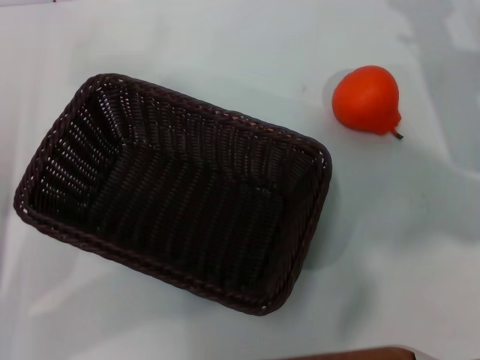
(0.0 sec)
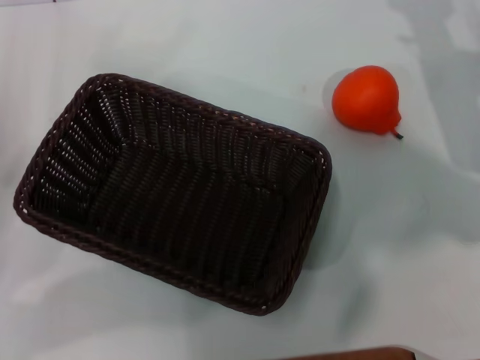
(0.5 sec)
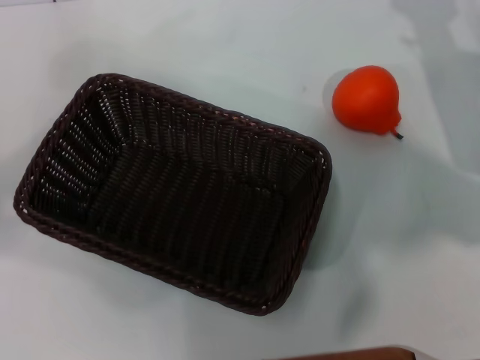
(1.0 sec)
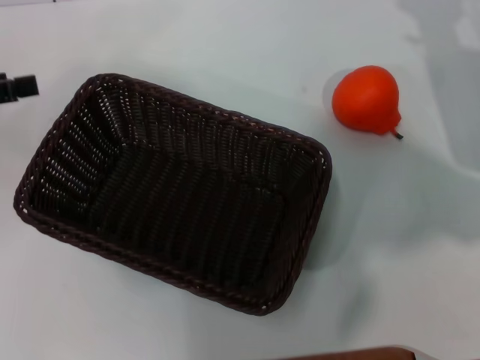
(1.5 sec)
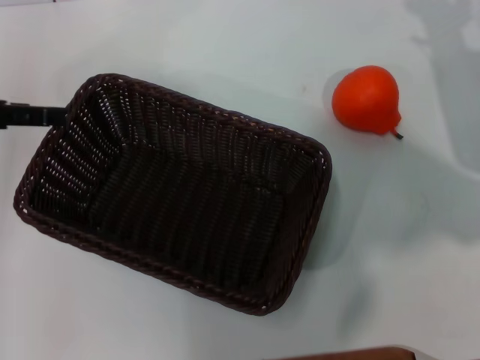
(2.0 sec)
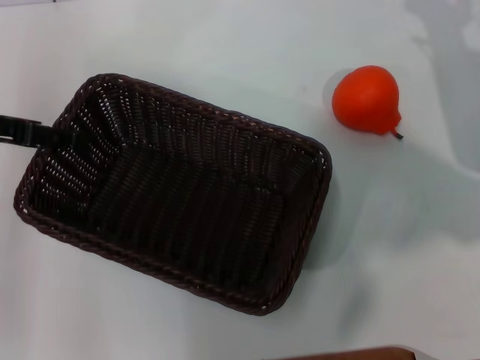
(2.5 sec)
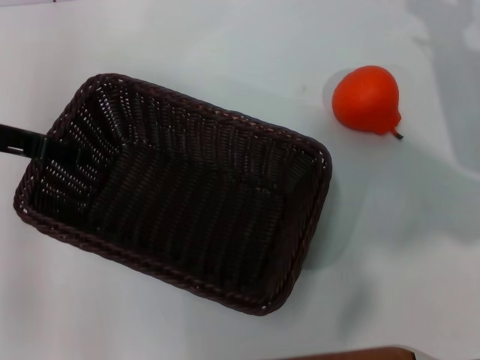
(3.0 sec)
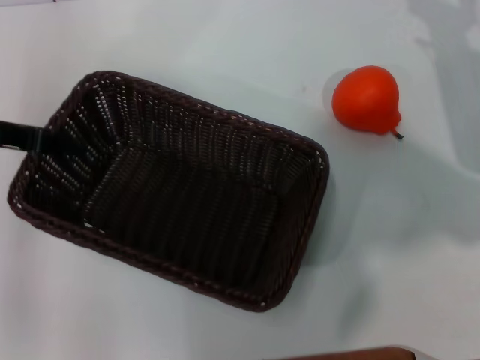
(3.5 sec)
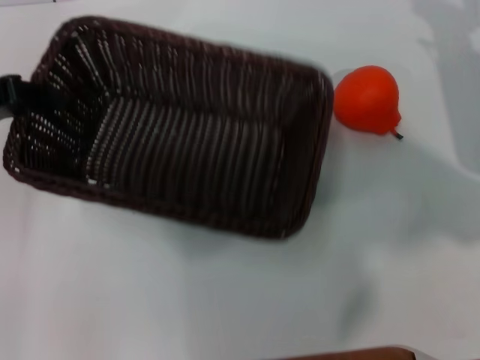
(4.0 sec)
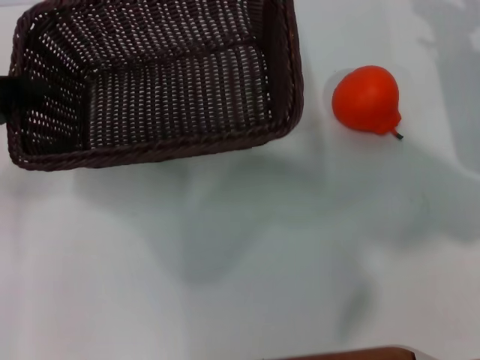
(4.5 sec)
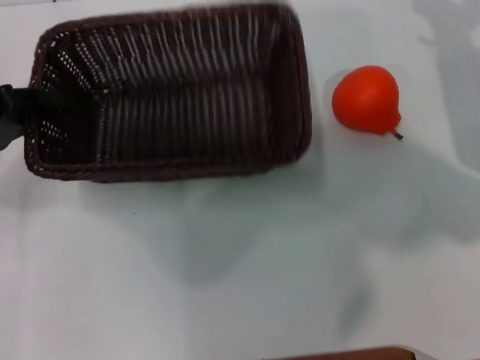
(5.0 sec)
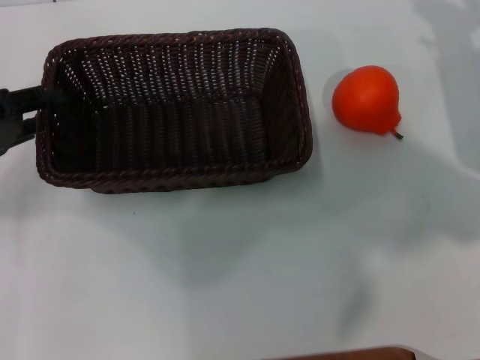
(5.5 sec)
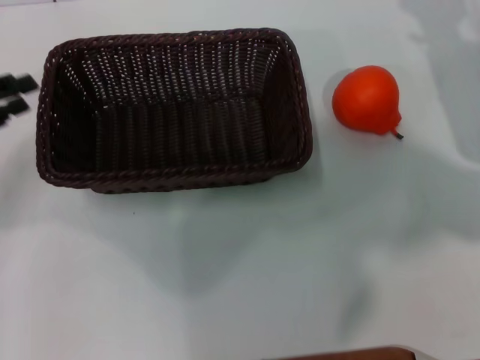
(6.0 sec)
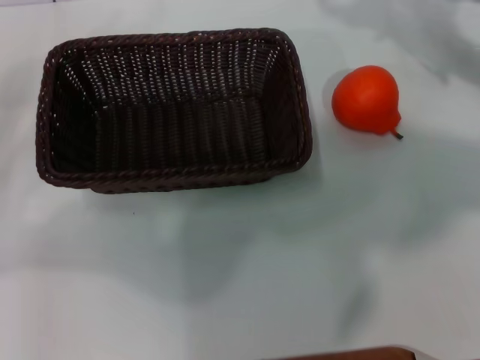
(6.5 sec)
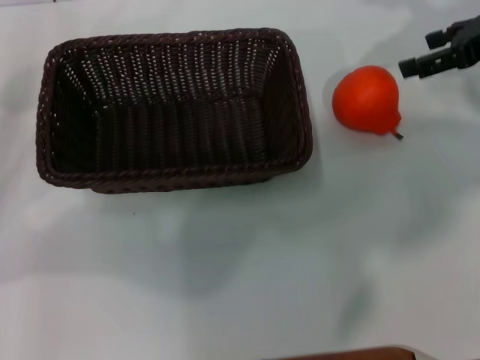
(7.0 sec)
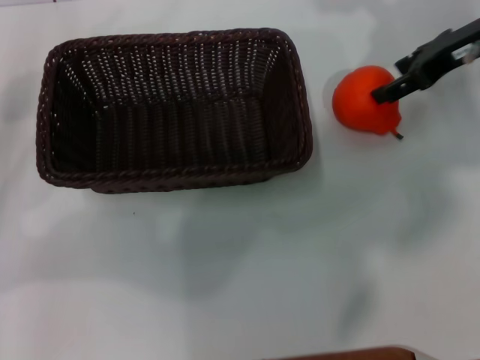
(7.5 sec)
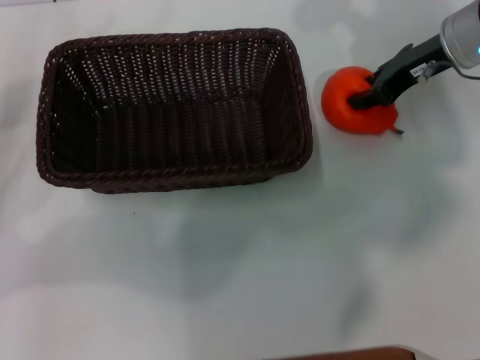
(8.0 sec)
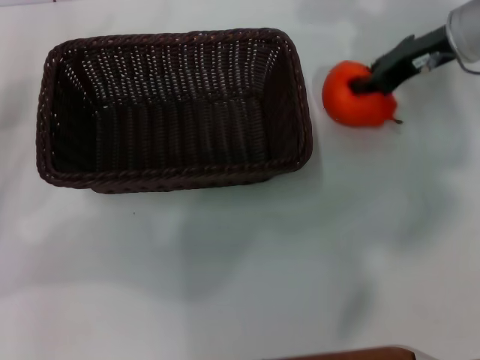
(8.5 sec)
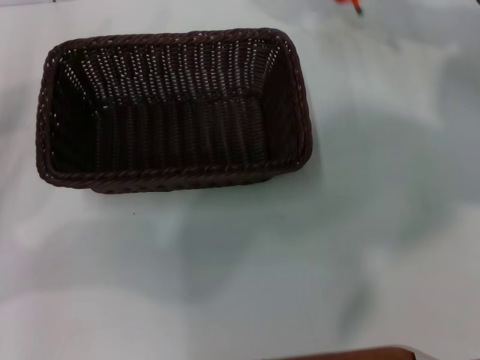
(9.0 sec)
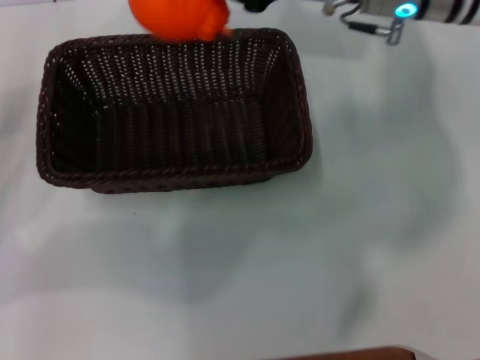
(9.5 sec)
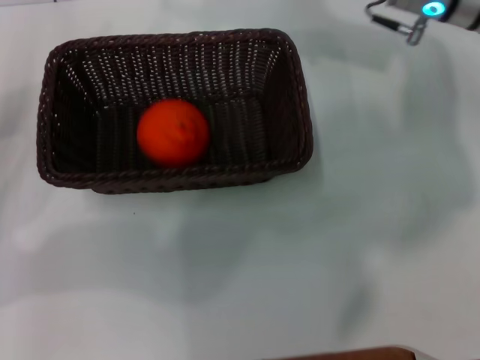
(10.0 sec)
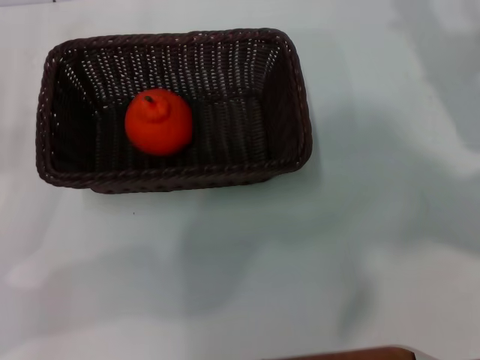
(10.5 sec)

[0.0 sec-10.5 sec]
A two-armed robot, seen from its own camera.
Task of the whole recording: the left gripper pick up the black basket and place it horizontally in the middle of the table, the right gripper pick up the orange and place it into the black basket.
Step, 0.0 sec to 3.5 sec: Pick up the dark basket with the left gripper.
Step, 4.5 sec to 5.5 sec: Place the dark basket in the center of view with the left gripper.
Step, 6.5 sec to 8.5 sec: Pick up the orange with the right gripper.
Step, 9.0 sec to 9.5 sec: Place the orange into the dark basket with the right gripper.
0.0 sec to 2.0 sec: The left gripper moves upward and forward, about 15 cm.
2.0 sec to 4.0 sec: The left gripper closes its fingers.
4.0 sec to 6.5 sec: The right gripper shifts approximately 5 cm upward. The left gripper shifts about 5 cm to the left, and opens its fingers.
6.5 sec to 8.5 sec: The right gripper heads to the left, covering about 10 cm, and closes its fingers.
8.5 sec to 10.5 sec: The right gripper goes some 10 cm backward and to the right, and opens its fingers.

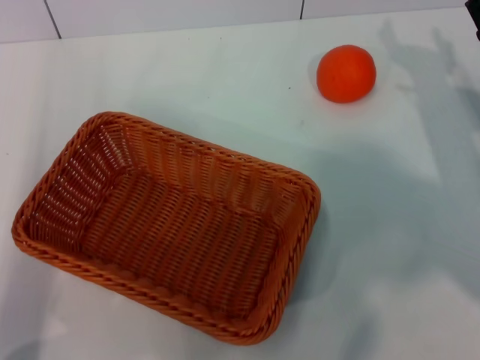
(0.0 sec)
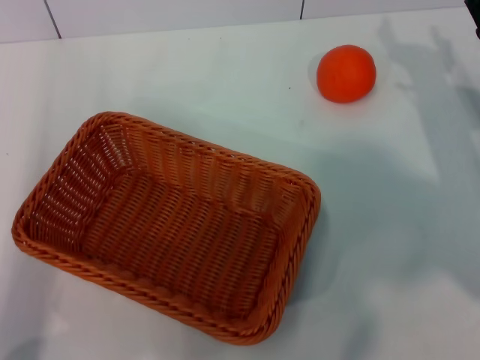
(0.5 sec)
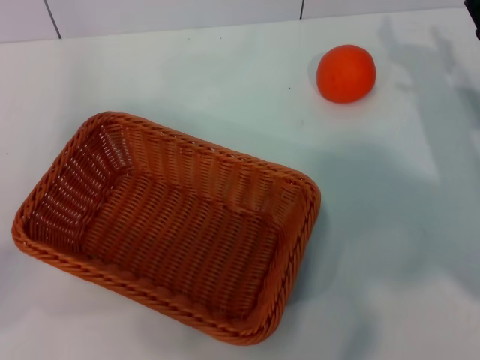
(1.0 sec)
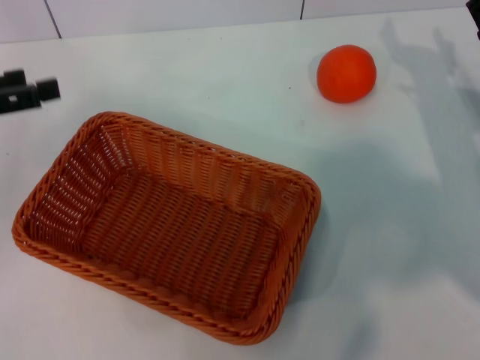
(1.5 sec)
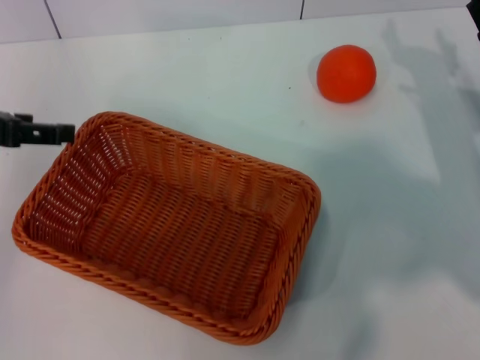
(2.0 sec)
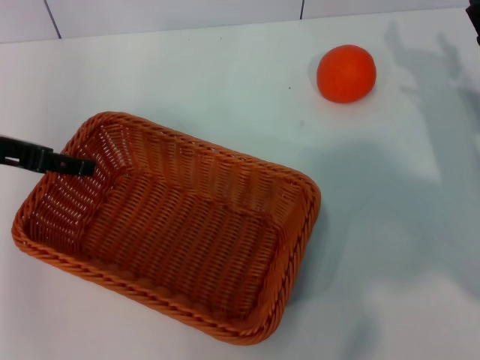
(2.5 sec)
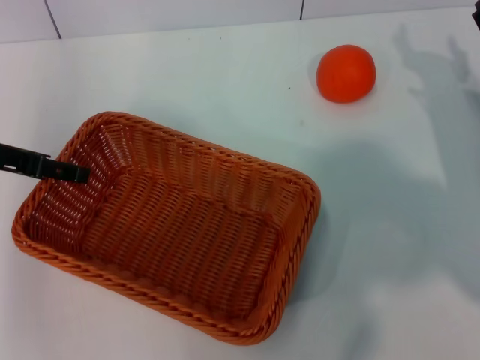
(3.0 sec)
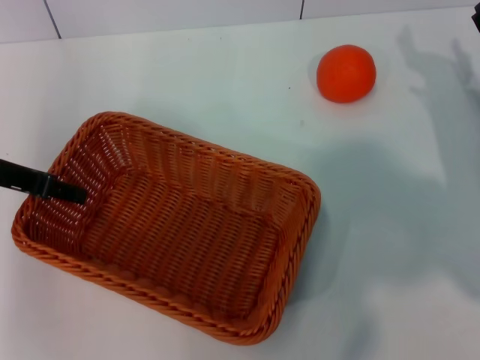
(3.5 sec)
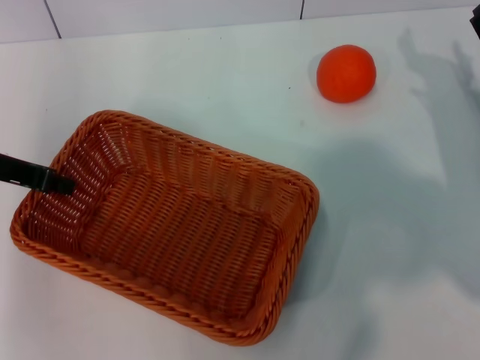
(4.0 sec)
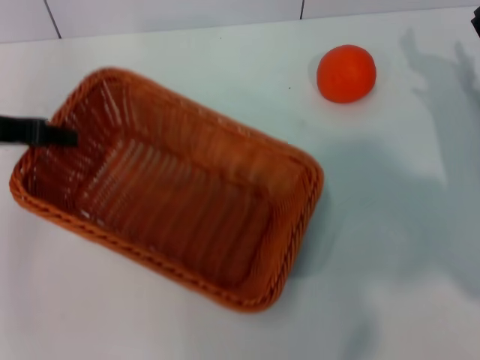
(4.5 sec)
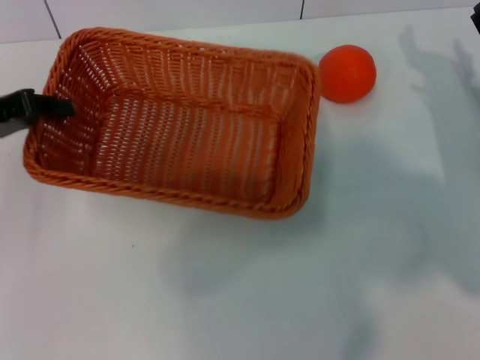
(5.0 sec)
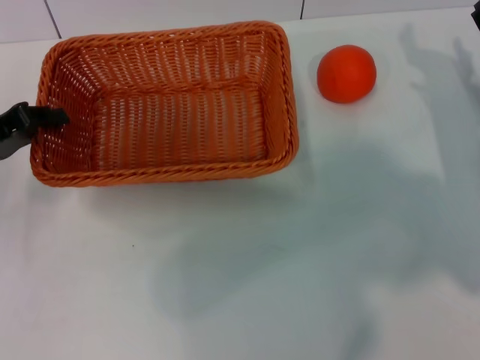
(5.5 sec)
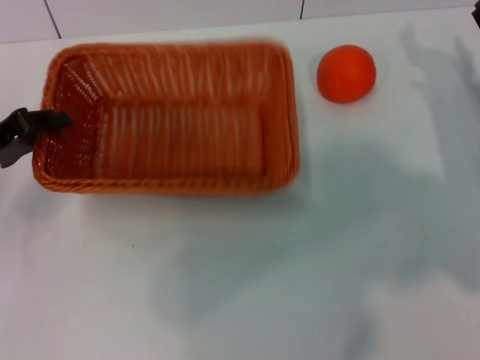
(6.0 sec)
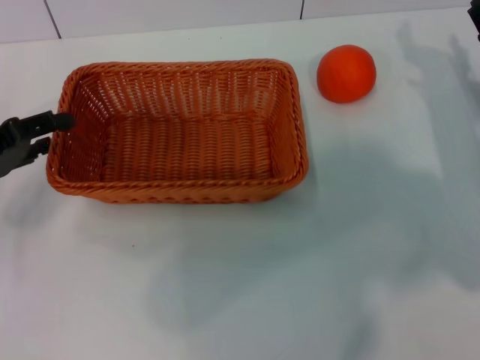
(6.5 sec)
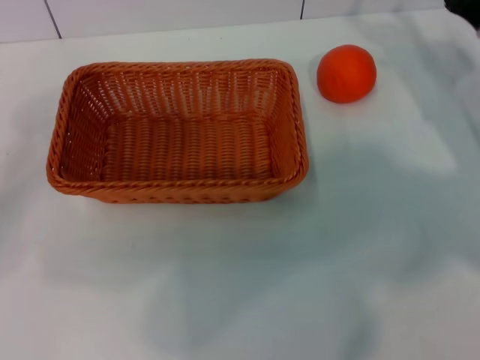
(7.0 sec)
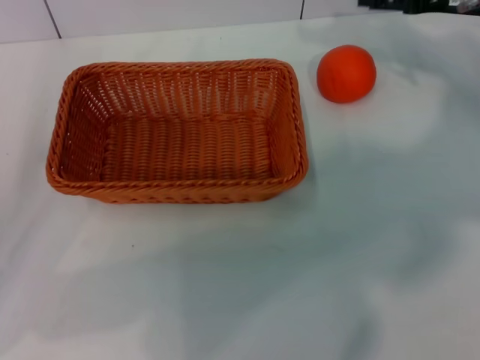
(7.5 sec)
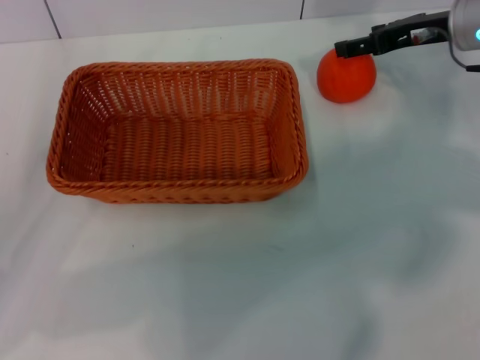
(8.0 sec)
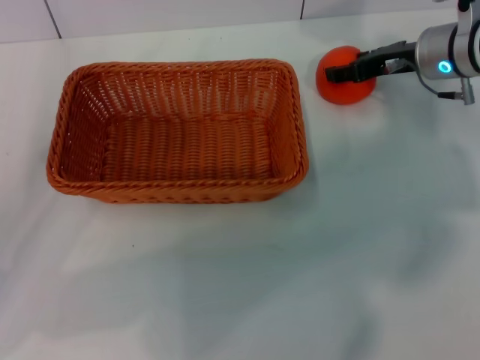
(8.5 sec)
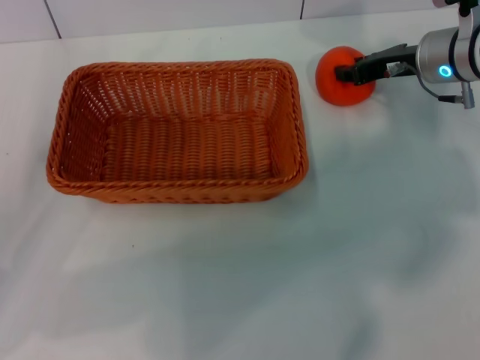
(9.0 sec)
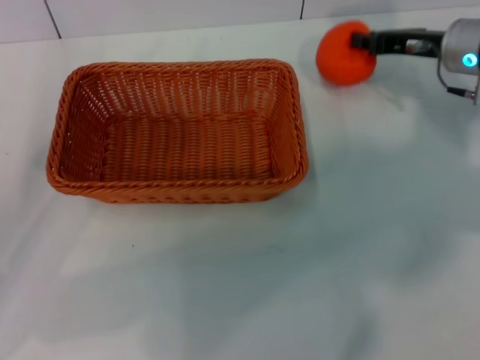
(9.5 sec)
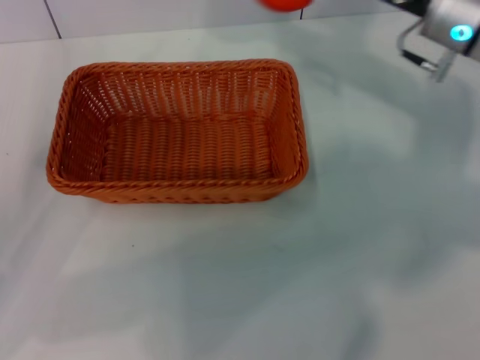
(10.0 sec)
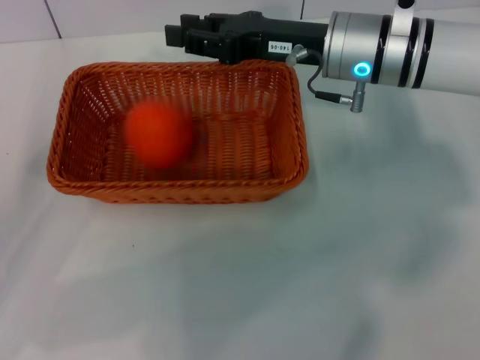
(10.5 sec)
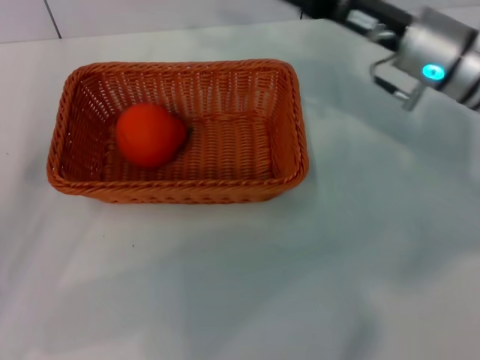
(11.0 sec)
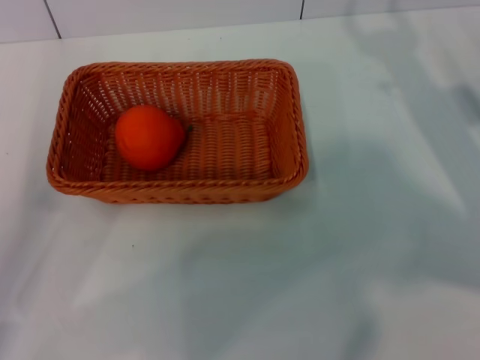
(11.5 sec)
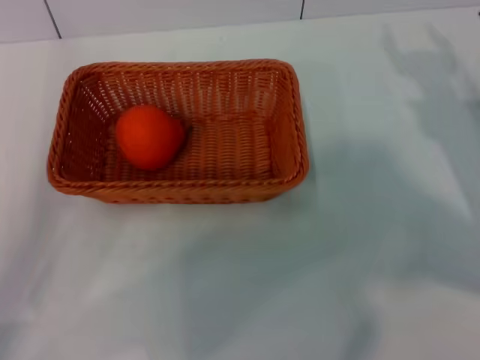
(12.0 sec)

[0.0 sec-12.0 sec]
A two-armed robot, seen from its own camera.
Task of the whole recording: the left gripper pick up the yellow basket and place it horizontally in the middle of the table, the right gripper pick up the orange and place it into the yellow basket.
Step, 0.0 sec to 4.5 sec: Pick up the light basket with the left gripper.
Step, 5.0 sec to 6.5 sec: Place the light basket in the center of view with the left gripper.
Step, 7.0 sec to 9.5 sec: Pick up the orange with the right gripper.
Step, 10.0 sec to 10.5 sec: Place the orange into the light basket with the right gripper.
0.0 sec to 2.0 sec: The left gripper moves upward and forward, approximately 15 cm.
2.0 sec to 4.0 sec: The left gripper closes up.
4.0 sec to 6.0 sec: The left gripper heads downward, covering some 5 cm.
6.0 sec to 8.0 sec: The left gripper is displaced backward by roughly 5 cm, and opens up. Meanwhile the right gripper is displaced upward and forward by approximately 15 cm.
8.0 sec to 10.0 sec: The right gripper changes place by about 5 cm, and closes up.
10.0 sec to 12.0 sec: The right gripper moves downward, backward and to the right, roughly 15 cm, and opens.
